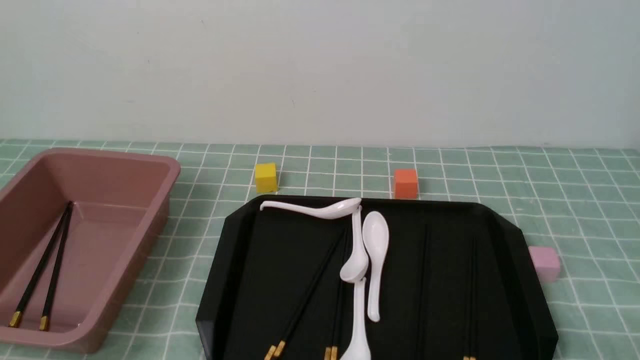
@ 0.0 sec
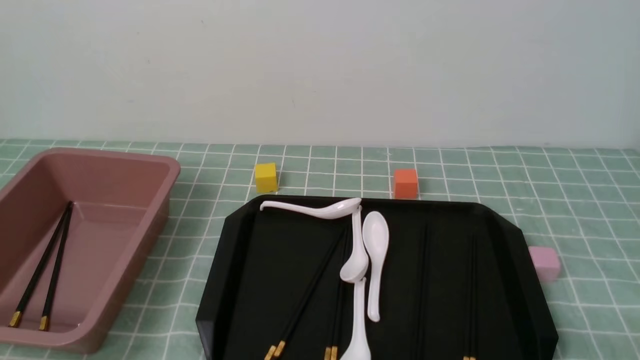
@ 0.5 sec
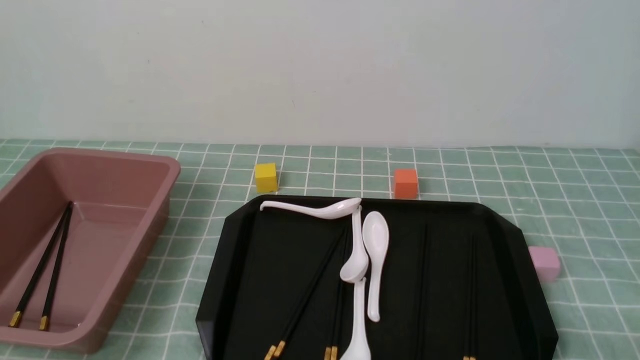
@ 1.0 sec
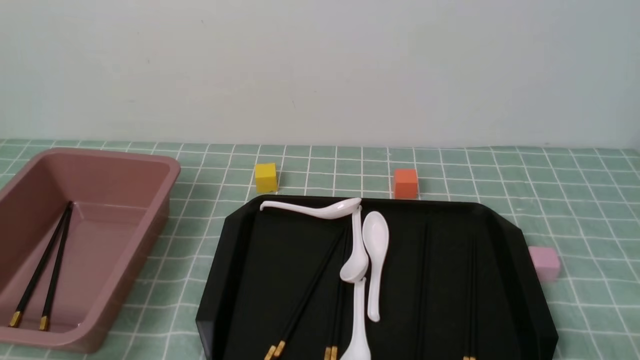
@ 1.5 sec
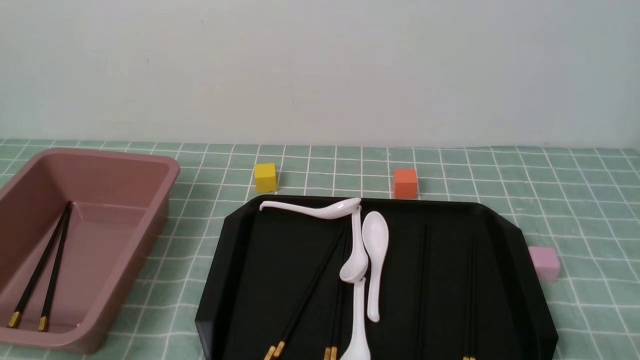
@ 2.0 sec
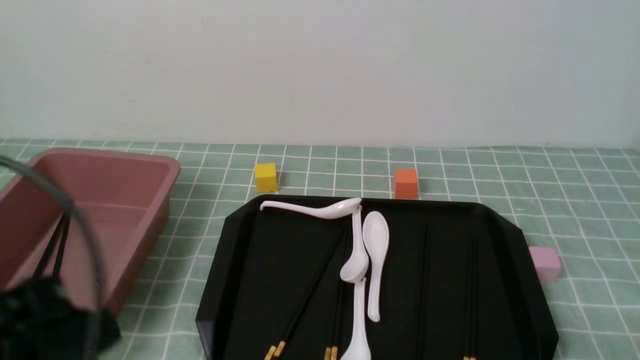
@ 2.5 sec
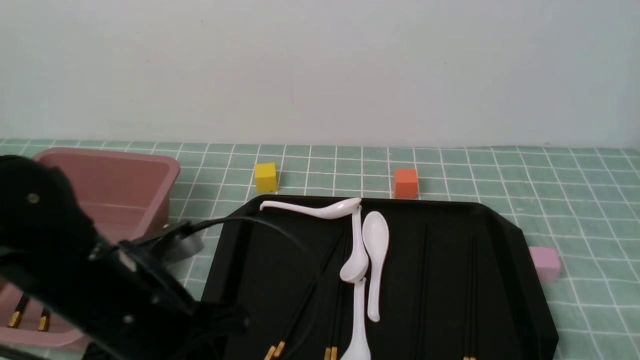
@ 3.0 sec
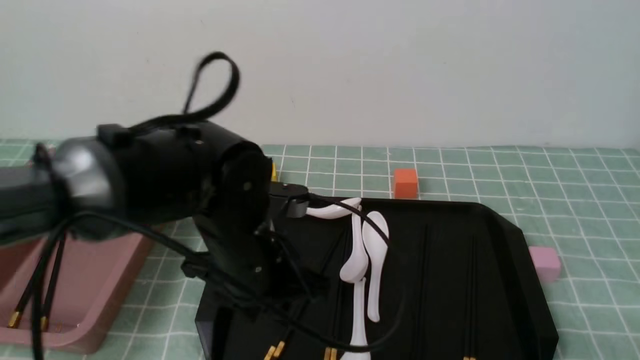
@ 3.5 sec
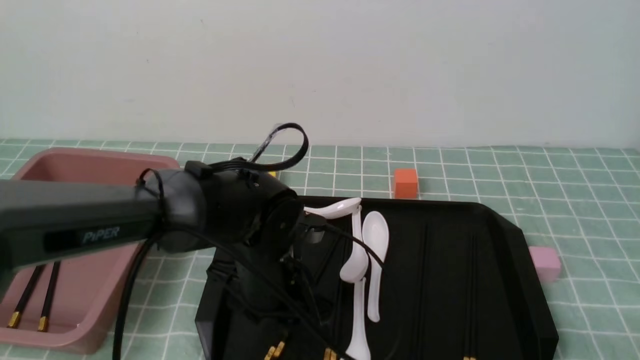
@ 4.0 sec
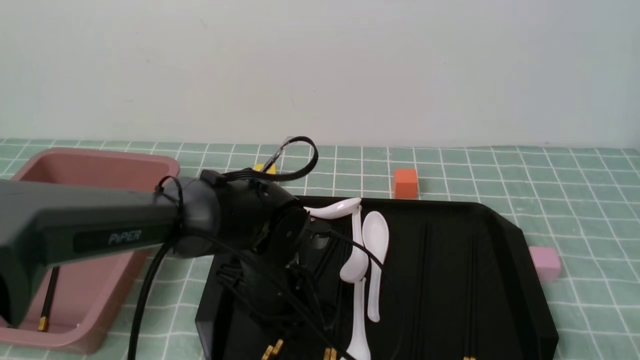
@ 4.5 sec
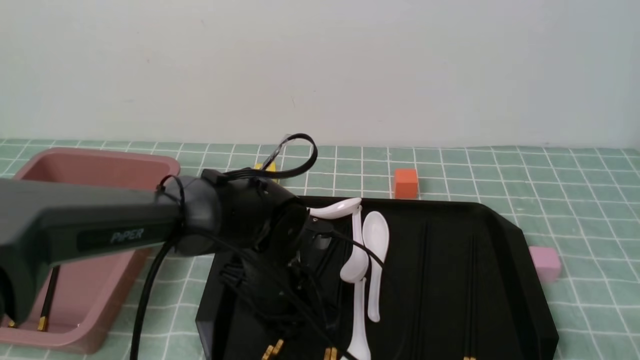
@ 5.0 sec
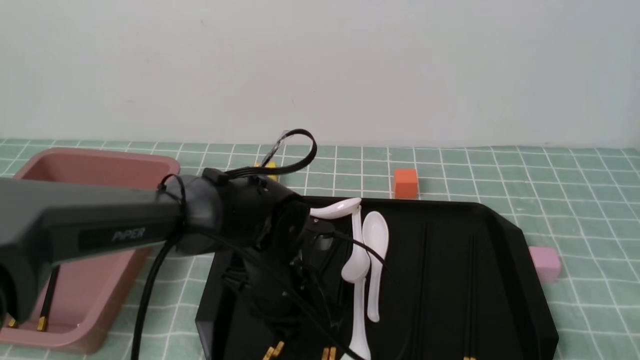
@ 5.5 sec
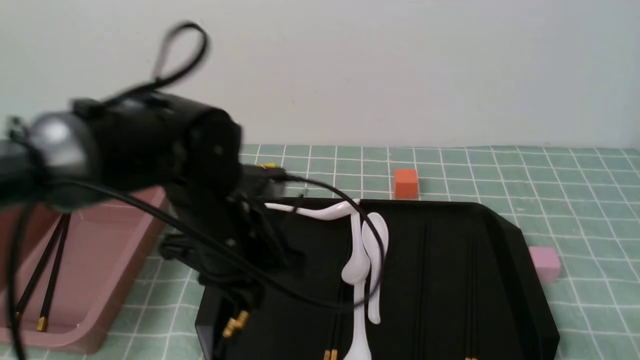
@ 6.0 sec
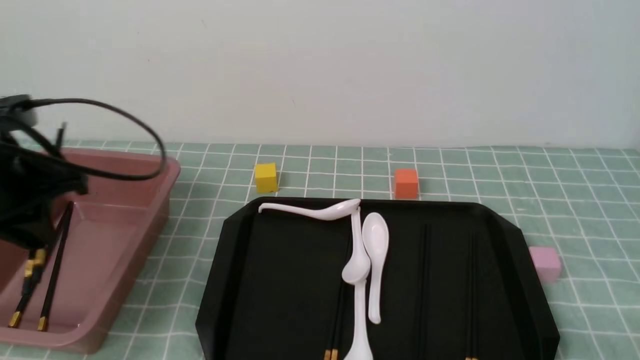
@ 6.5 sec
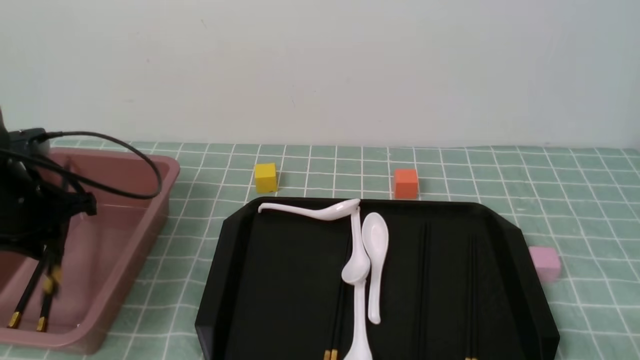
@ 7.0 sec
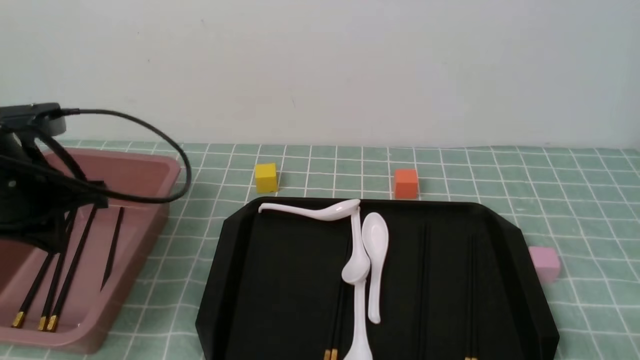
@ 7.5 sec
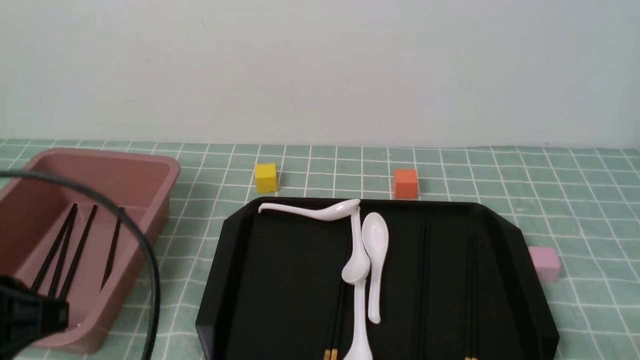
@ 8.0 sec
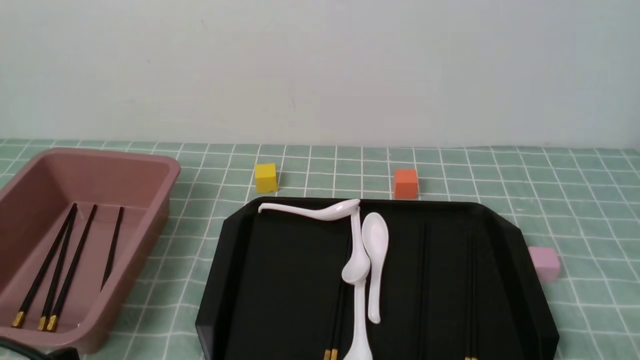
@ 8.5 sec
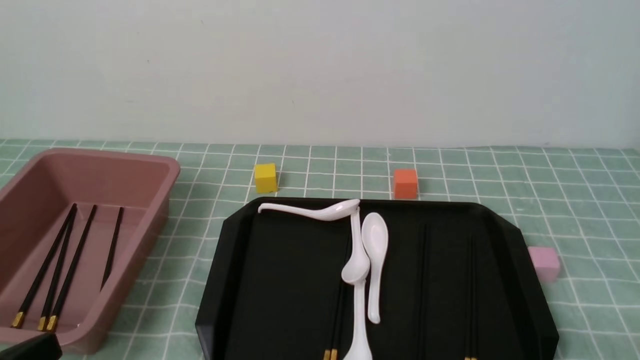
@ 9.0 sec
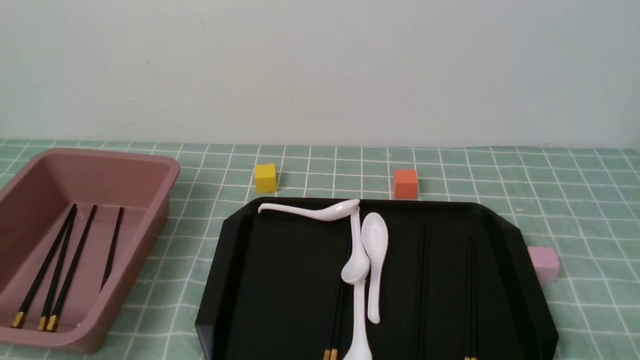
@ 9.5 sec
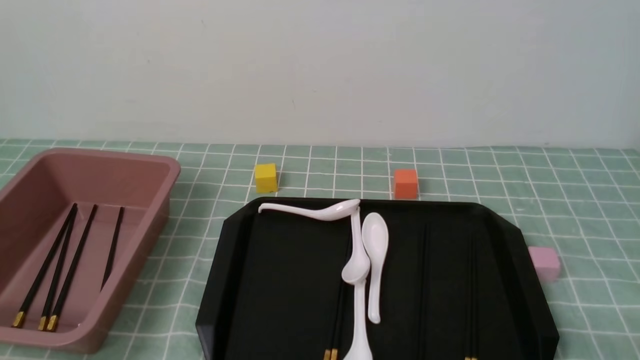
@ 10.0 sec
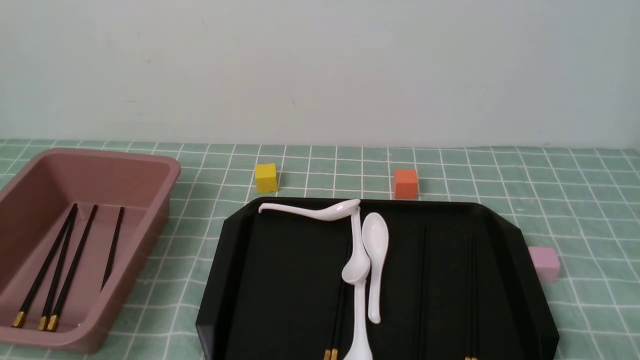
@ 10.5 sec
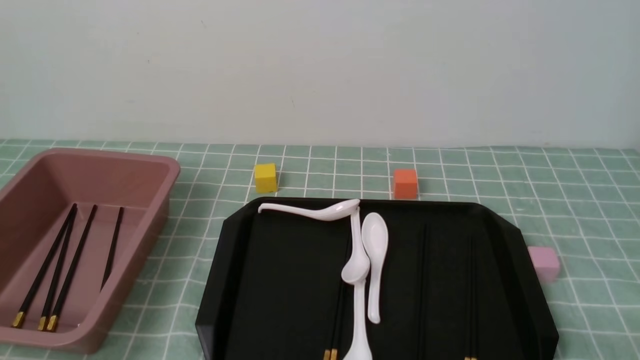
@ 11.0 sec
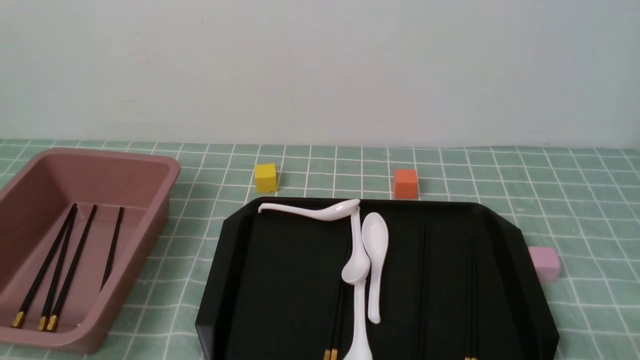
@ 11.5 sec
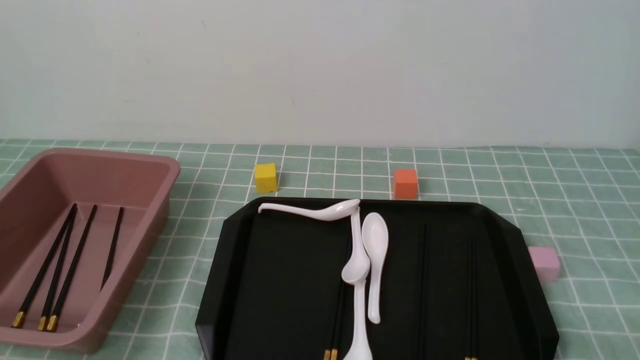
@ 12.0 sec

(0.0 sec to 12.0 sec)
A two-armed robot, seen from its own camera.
Step, 0.0 sec - 5.5 sec: use the left arm to grab a pair of chopsticks.
Step, 6.5 sec - 7.0 sec: use the left arm to put the chopsticks into the lunch box.
2.0 sec - 4.0 sec: The left gripper is displaced forward and to the right by roughly 30 cm, and opens.
4.0 sec - 6.0 sec: The left gripper goes approximately 10 cm upward and to the left, and closes.
6.0 sec - 8.0 sec: The left gripper moves backward and to the left, approximately 20 cm.
8.0 sec - 10.0 sec: The left gripper shifts about 15 cm downward and backward.
